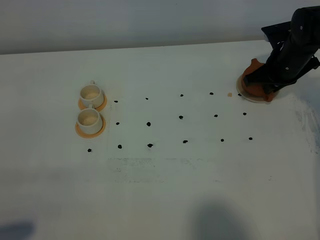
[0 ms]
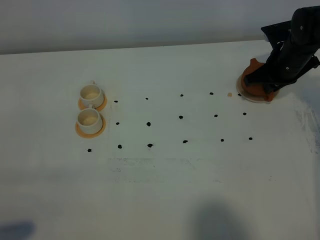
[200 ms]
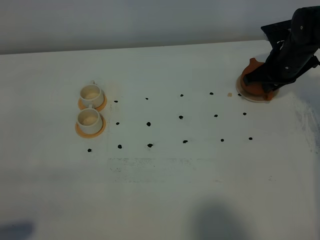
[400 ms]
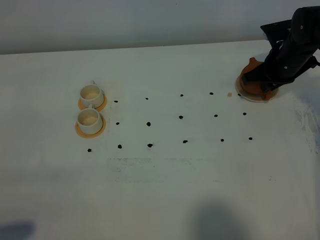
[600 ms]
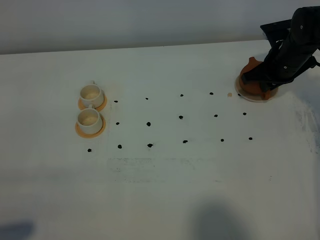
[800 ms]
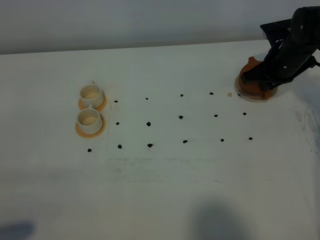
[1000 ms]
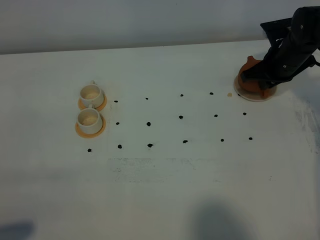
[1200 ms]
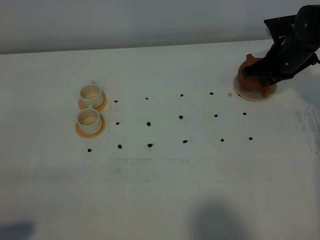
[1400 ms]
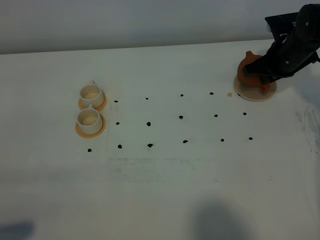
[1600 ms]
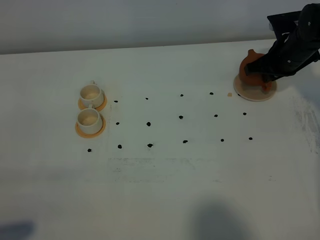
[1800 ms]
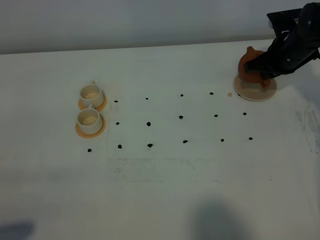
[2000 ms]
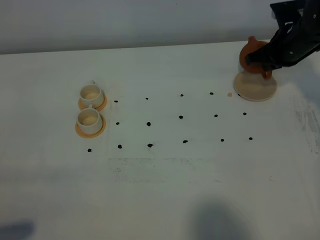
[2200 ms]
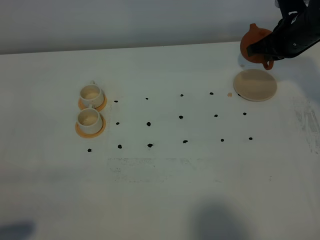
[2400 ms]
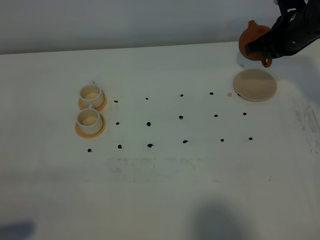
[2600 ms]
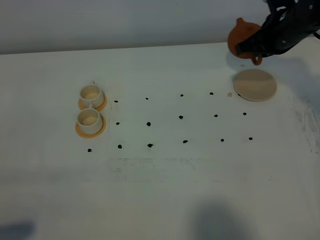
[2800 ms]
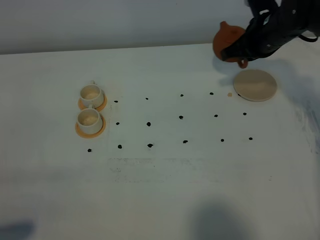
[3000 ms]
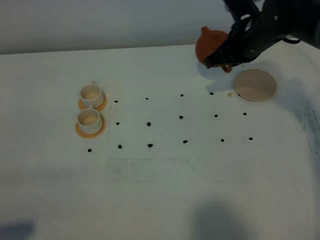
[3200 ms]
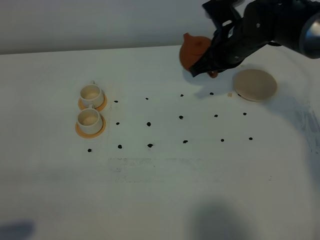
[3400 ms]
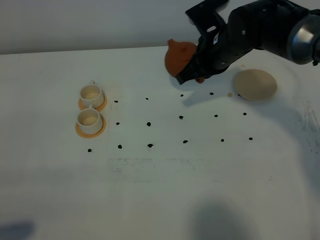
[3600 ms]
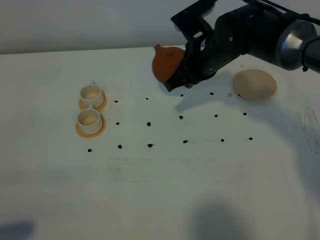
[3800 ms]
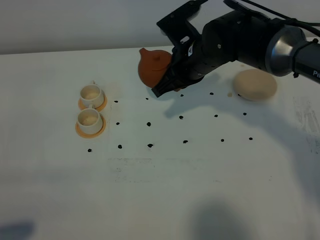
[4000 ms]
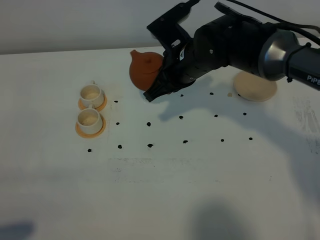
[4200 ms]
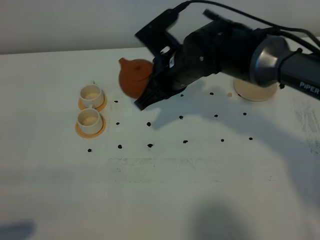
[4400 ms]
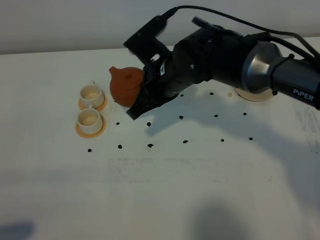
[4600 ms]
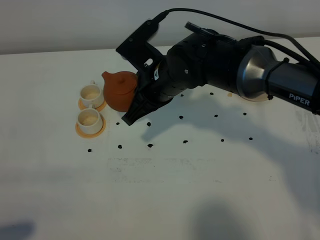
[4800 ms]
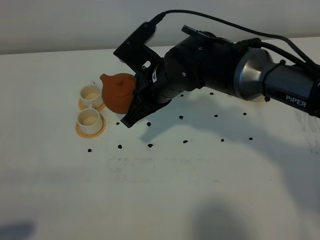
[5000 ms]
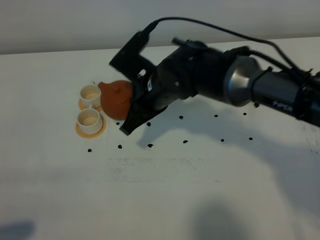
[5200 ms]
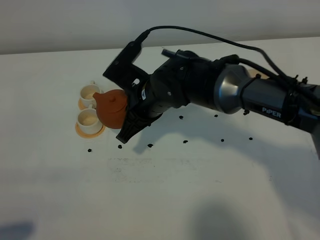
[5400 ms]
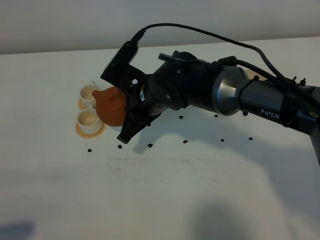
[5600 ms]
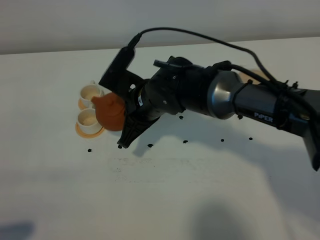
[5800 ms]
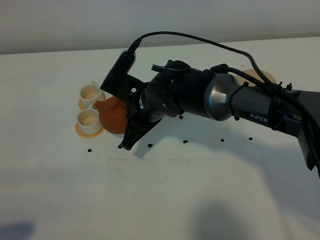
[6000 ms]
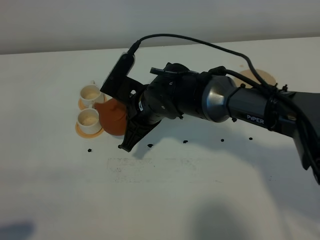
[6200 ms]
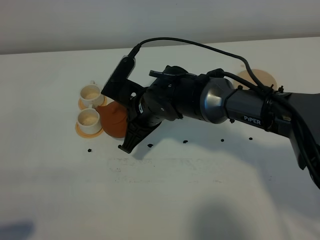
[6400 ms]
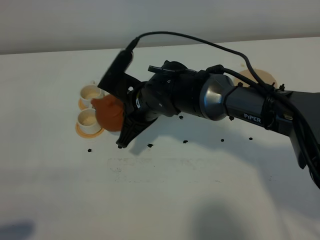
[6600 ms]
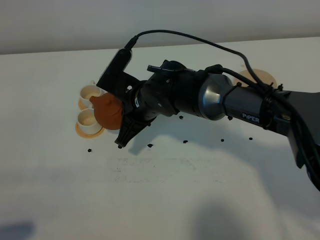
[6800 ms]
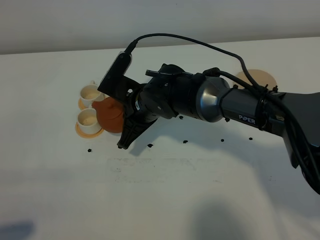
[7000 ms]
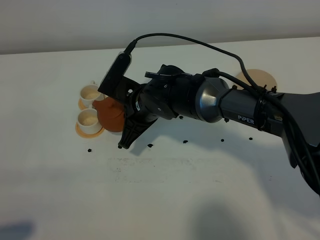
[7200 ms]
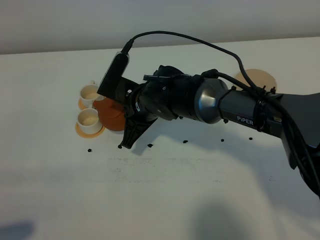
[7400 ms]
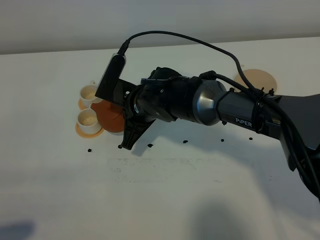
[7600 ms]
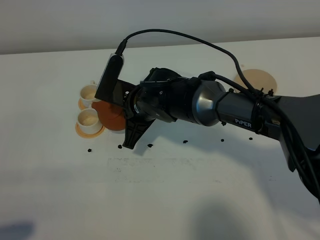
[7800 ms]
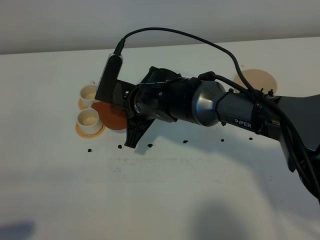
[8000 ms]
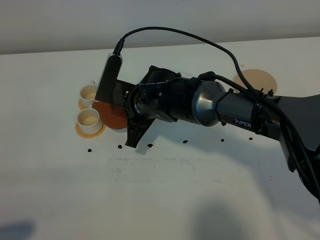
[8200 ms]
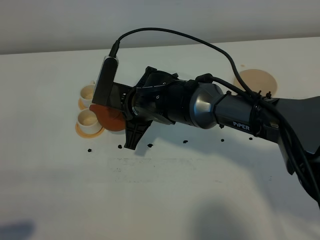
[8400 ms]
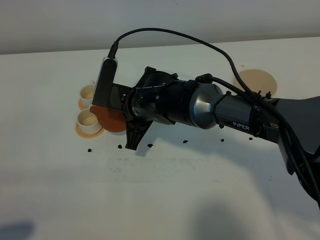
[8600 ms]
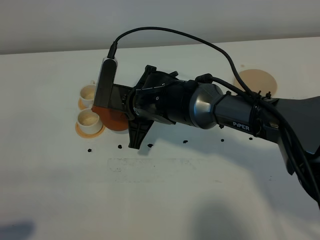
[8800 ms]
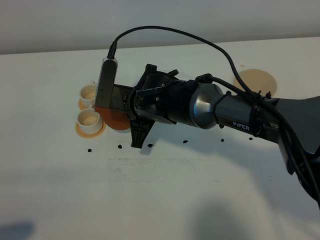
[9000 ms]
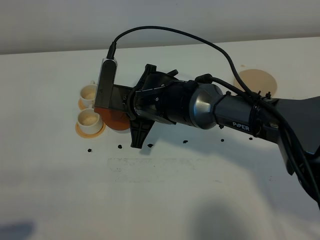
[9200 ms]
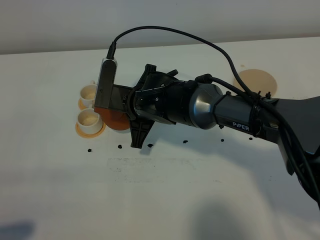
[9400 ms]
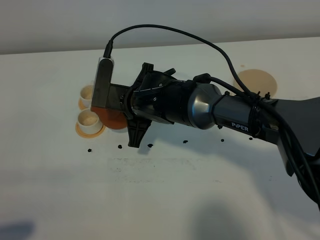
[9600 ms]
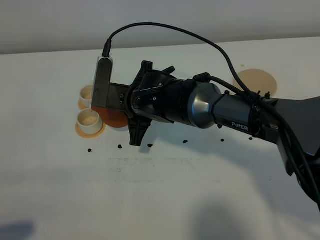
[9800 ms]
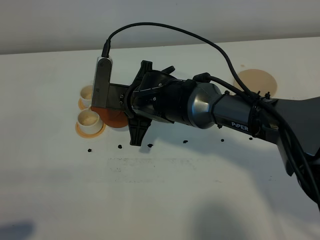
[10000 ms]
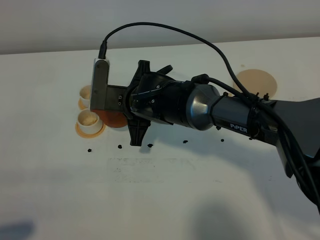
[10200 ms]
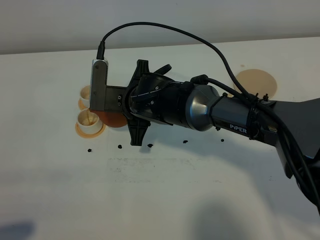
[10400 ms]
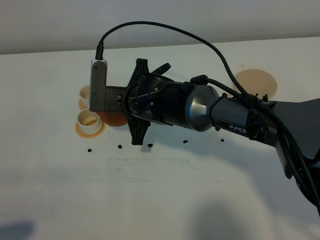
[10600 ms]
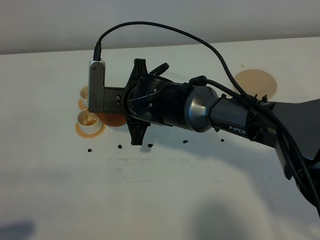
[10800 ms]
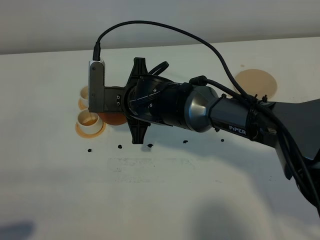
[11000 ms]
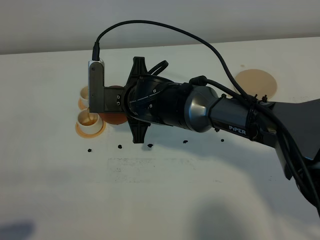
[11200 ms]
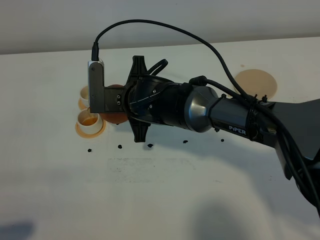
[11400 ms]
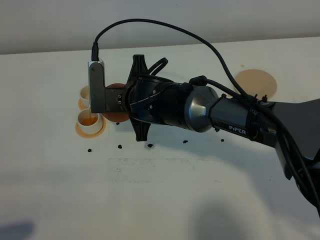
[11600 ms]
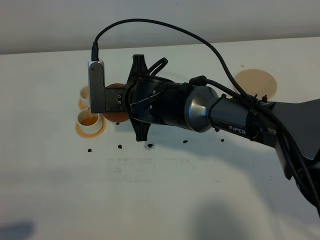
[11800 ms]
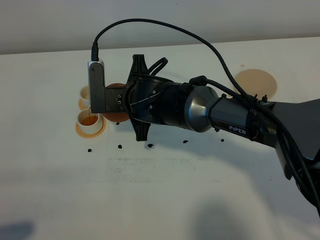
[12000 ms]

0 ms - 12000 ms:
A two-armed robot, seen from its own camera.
Task of the whole recording: grasp the brown teapot and pour the tea into the two white teacups one by one, put the brown teapot back in its original place.
Step, 0 ms - 2200 ms: Pick up the teapot with the right gripper.
0 ms - 1600 ms: There are only small adjustments of the grippers.
1600 ms - 3000 ms: The right gripper goes roughly 10 cm to the left and upward.
3000 ms - 4400 ms: The right gripper heads to the left, covering some 15 cm.
4400 ms - 6000 ms: The right gripper is displaced downward by about 5 cm.
6000 ms - 7600 ms: The grippers make only small movements.
7600 ms - 9000 ms: The grippers stay close to where they were, moving slightly.
9000 ms - 12000 ms: There are only small adjustments of the grippers.

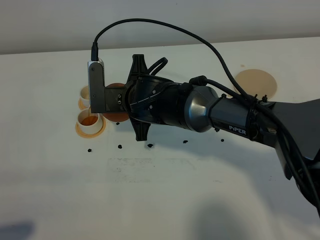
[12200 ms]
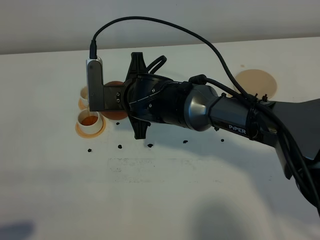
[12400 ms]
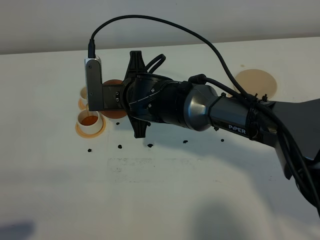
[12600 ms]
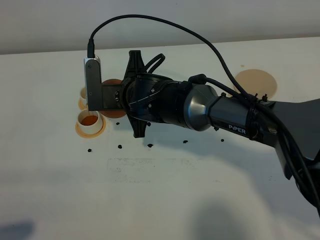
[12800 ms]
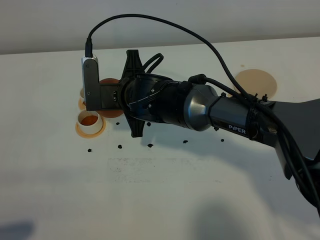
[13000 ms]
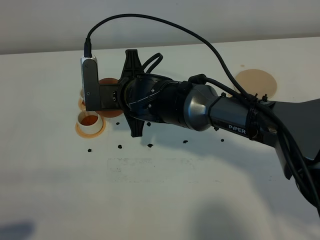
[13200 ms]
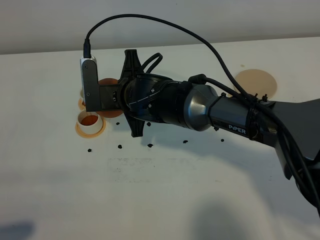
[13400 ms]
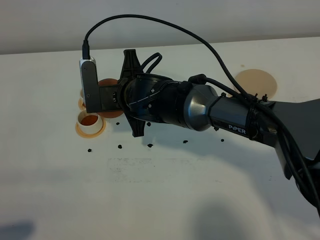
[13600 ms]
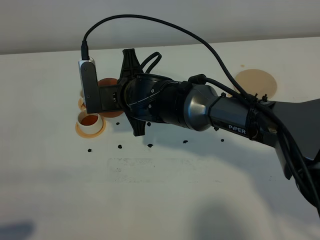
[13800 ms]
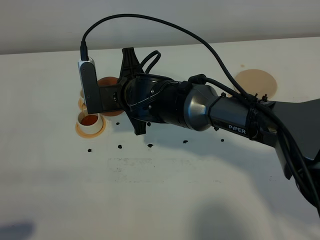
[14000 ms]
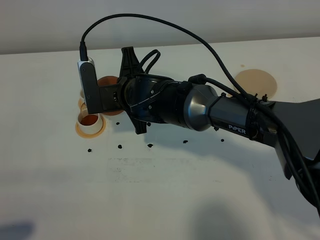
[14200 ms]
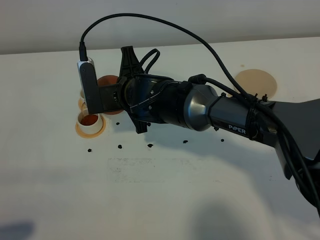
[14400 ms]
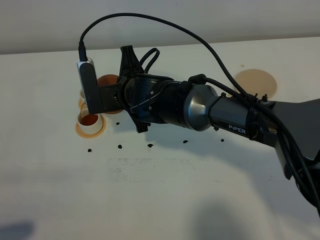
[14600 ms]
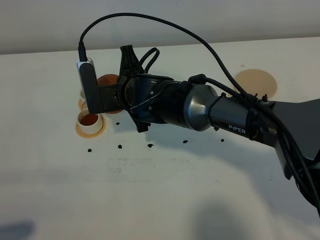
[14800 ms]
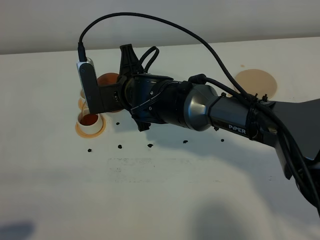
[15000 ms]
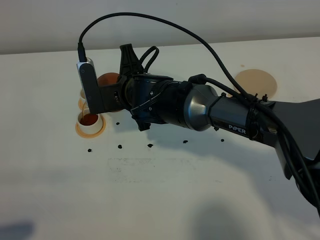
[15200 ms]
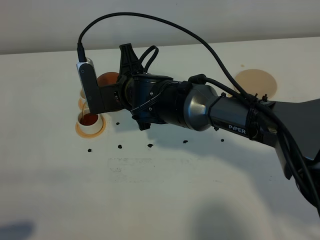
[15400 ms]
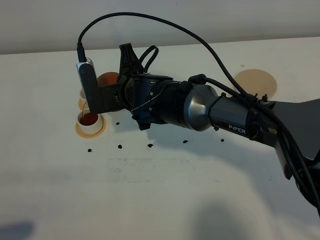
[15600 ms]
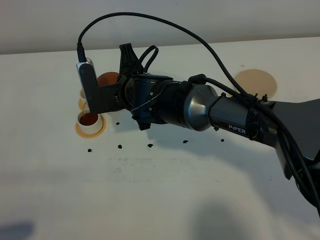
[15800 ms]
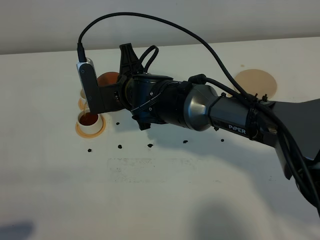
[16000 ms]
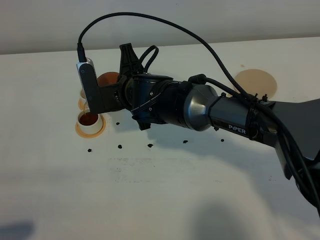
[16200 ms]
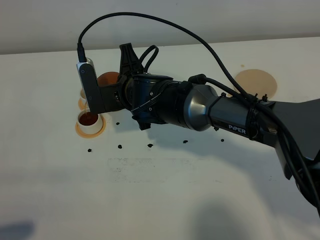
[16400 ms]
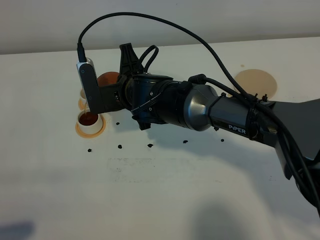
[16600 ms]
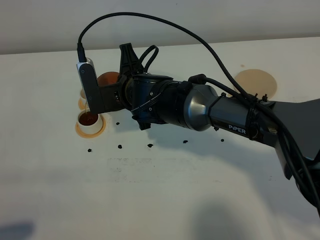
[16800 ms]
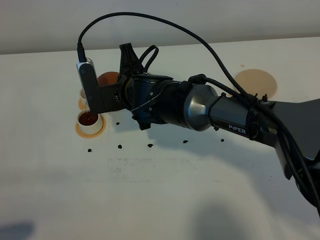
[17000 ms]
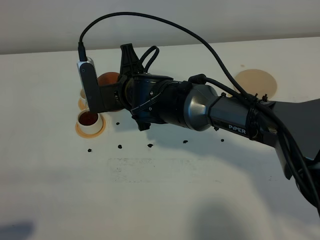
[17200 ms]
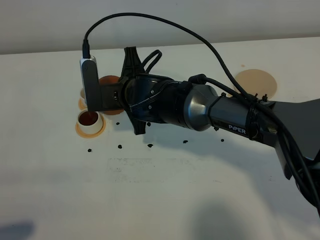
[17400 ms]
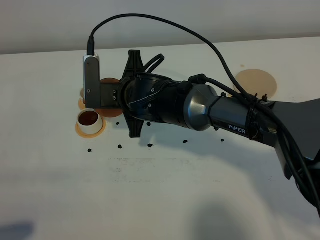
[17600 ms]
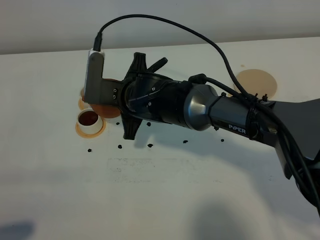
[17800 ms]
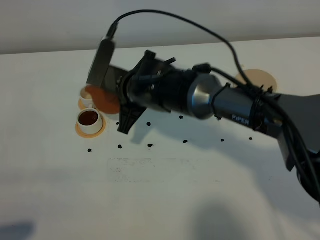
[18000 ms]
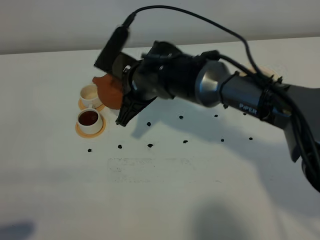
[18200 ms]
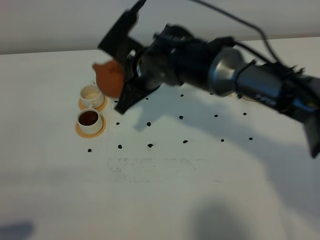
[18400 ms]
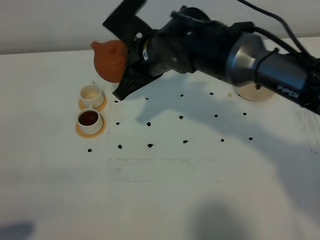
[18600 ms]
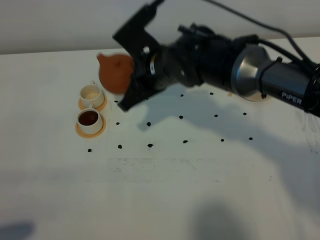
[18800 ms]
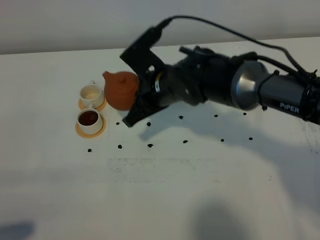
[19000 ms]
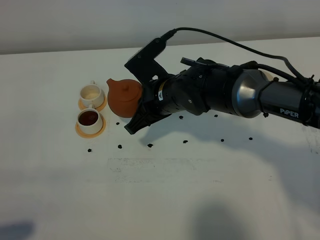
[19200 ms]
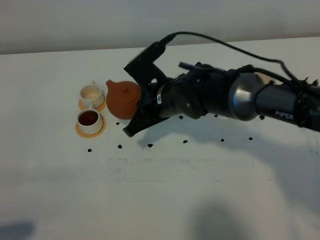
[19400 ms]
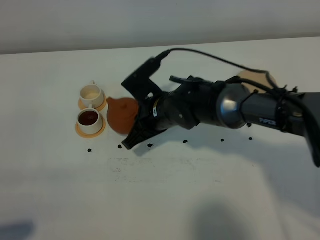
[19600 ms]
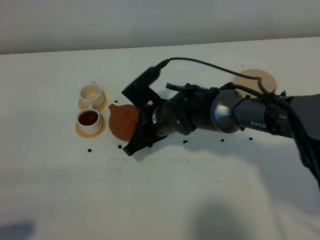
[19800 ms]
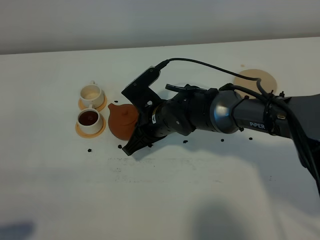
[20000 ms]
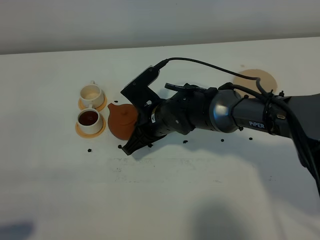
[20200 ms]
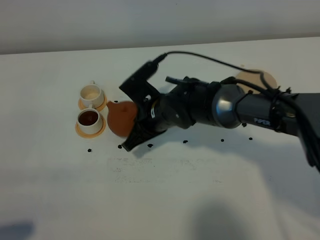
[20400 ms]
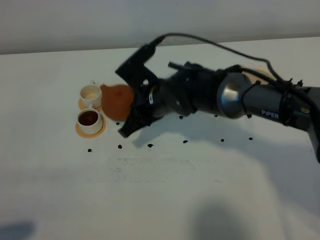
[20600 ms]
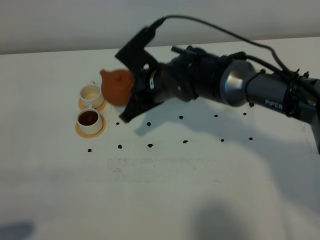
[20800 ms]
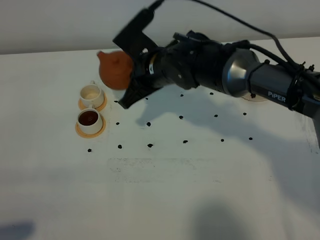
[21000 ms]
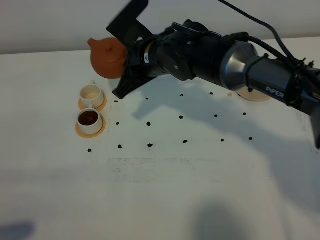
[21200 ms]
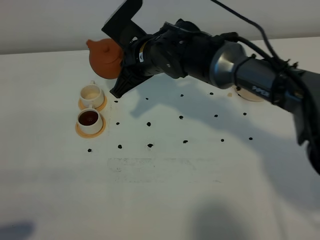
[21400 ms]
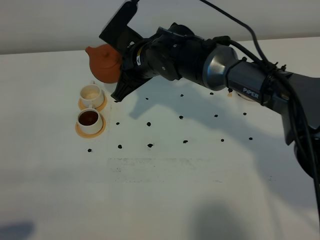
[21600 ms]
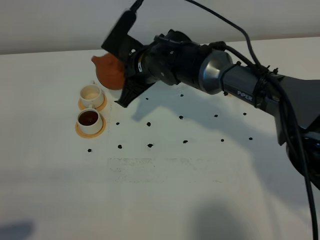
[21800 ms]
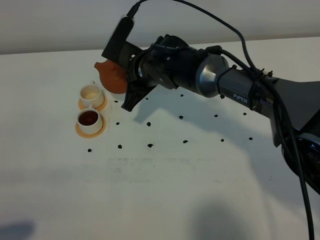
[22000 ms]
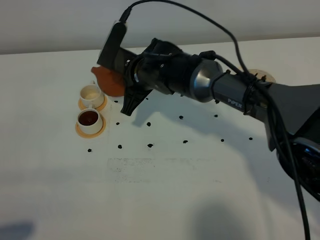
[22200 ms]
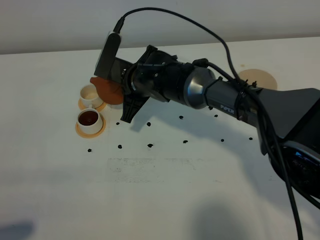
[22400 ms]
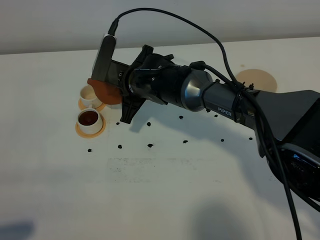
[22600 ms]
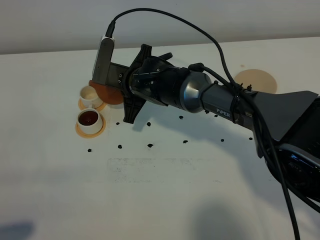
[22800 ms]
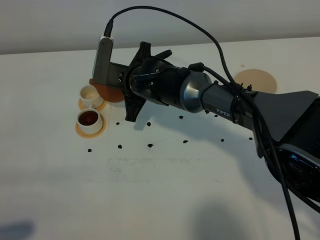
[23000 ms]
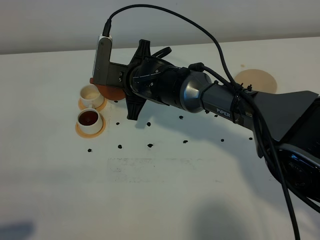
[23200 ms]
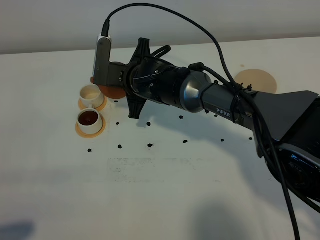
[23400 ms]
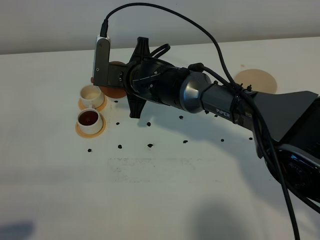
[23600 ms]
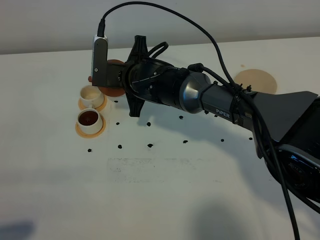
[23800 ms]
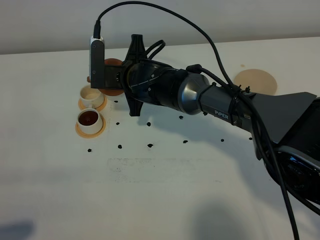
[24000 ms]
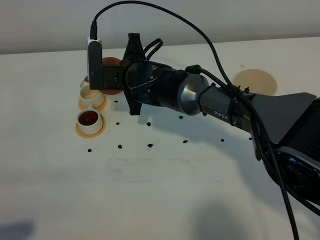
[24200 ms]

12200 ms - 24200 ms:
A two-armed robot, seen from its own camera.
Task of the whole recording: grasp the brown teapot and pour the tea into the two white teacups one by one, put the brown teapot back in its original place.
Step, 12200 ms - 18000 ms: Pour tea into the teacup with the right gripper.
12200 ms - 15200 ms: The grippers make only small movements.
15200 ms - 16600 ms: Both grippers stay about where they are.
18200 ms - 19800 ms: The right gripper goes about 10 cm downward.
19800 ms - 21200 ms: The right gripper shifts roughly 10 cm upward and forward.
21200 ms - 22600 ms: The right gripper is displaced downward by approximately 5 cm.
